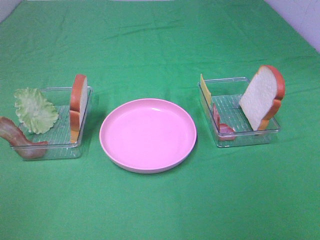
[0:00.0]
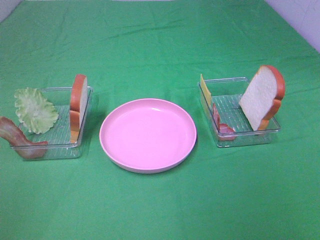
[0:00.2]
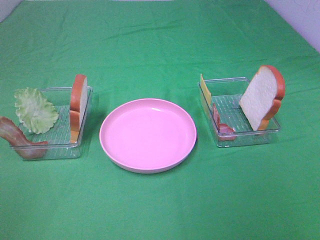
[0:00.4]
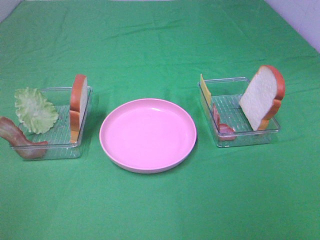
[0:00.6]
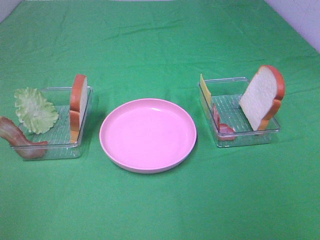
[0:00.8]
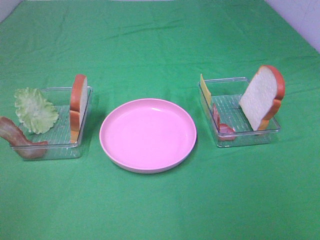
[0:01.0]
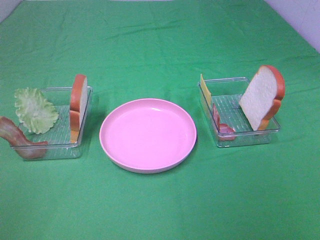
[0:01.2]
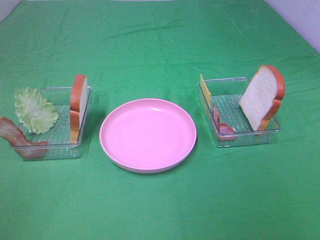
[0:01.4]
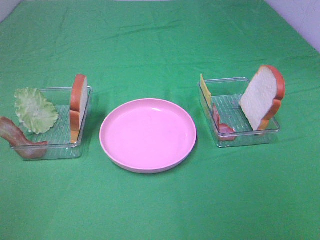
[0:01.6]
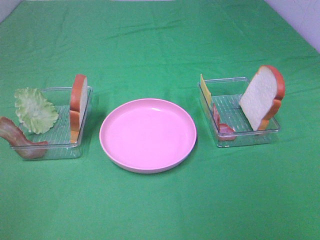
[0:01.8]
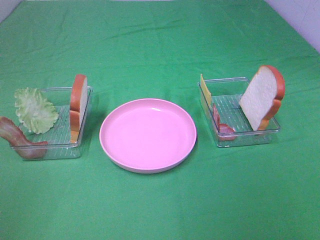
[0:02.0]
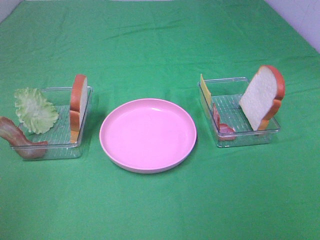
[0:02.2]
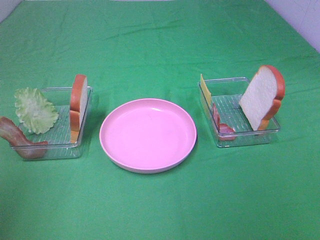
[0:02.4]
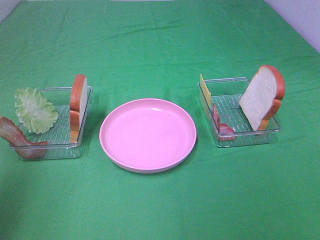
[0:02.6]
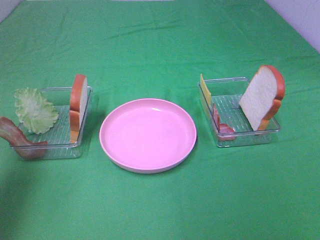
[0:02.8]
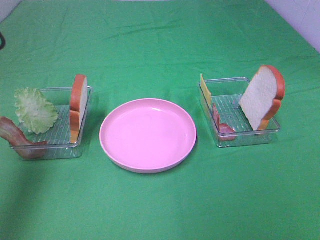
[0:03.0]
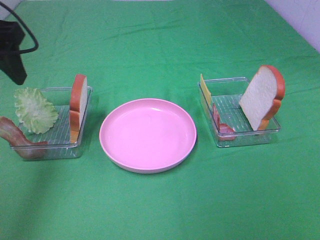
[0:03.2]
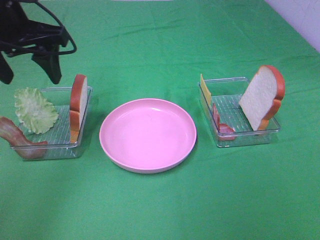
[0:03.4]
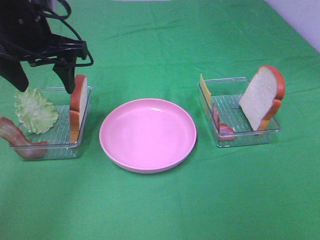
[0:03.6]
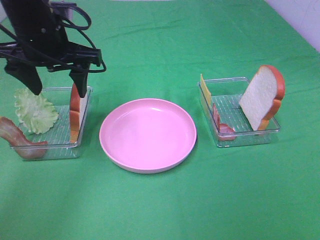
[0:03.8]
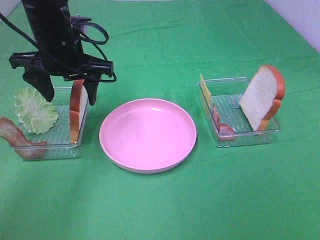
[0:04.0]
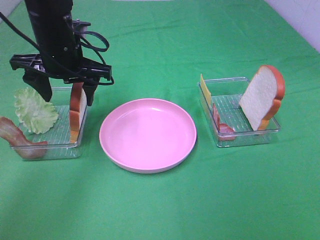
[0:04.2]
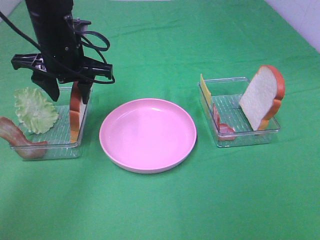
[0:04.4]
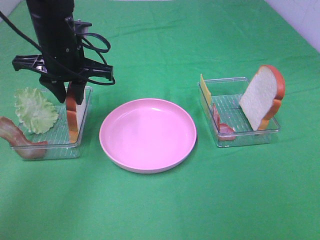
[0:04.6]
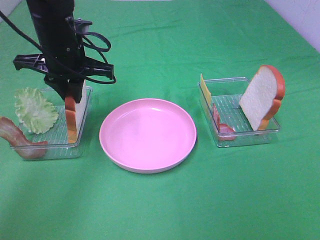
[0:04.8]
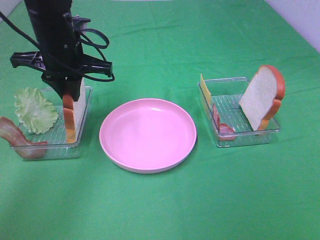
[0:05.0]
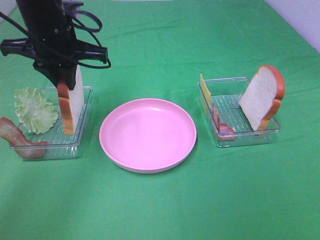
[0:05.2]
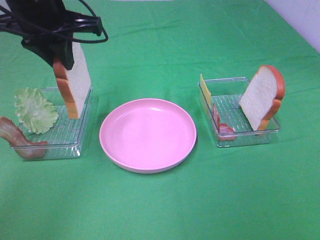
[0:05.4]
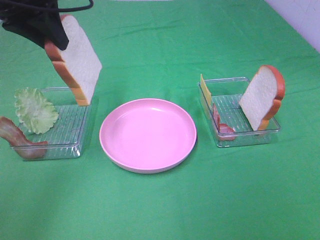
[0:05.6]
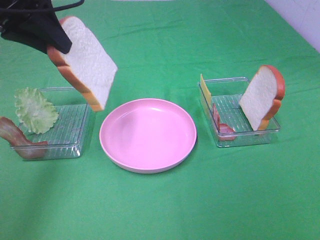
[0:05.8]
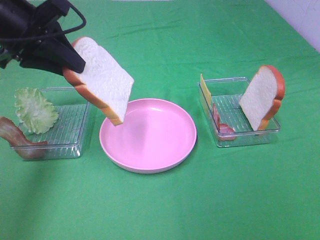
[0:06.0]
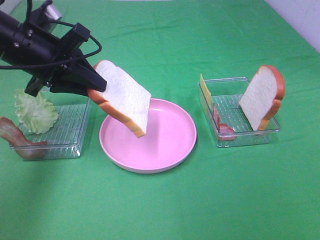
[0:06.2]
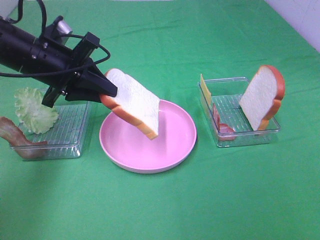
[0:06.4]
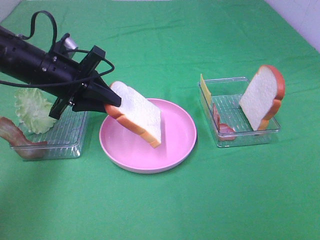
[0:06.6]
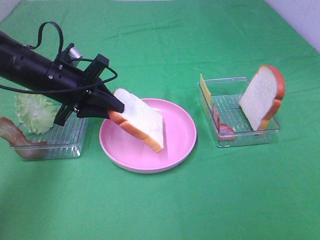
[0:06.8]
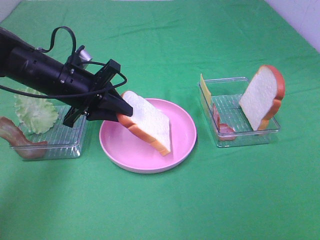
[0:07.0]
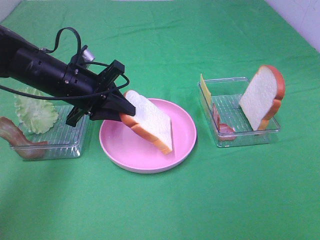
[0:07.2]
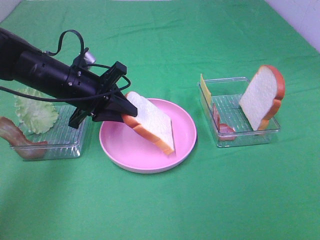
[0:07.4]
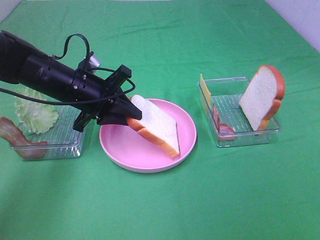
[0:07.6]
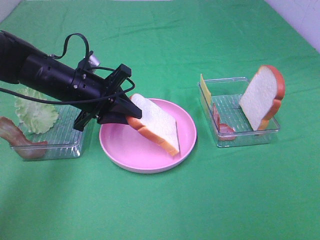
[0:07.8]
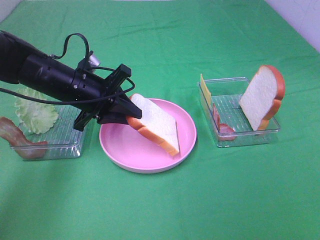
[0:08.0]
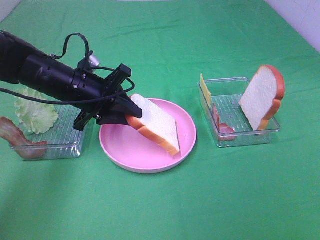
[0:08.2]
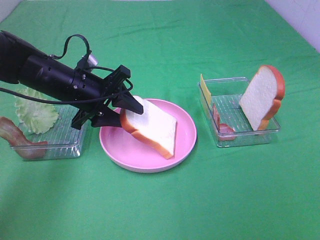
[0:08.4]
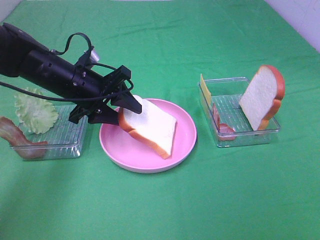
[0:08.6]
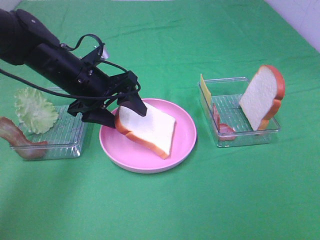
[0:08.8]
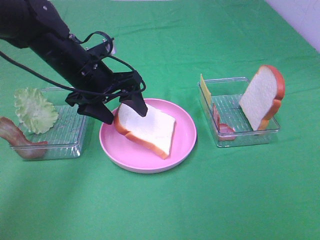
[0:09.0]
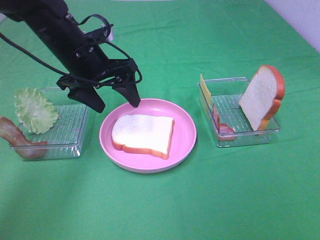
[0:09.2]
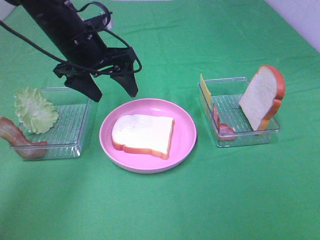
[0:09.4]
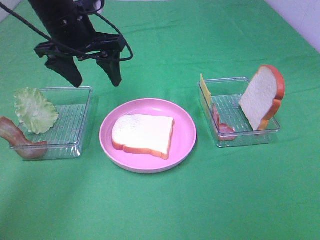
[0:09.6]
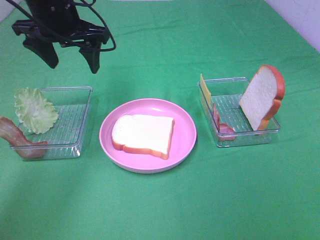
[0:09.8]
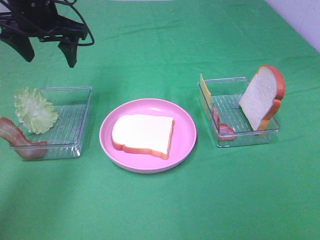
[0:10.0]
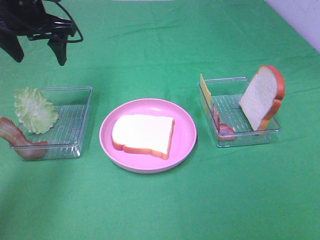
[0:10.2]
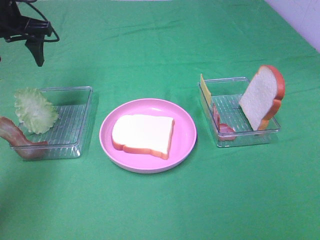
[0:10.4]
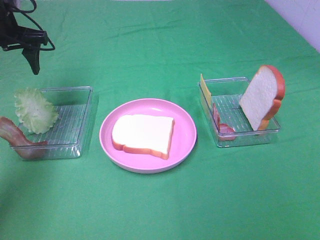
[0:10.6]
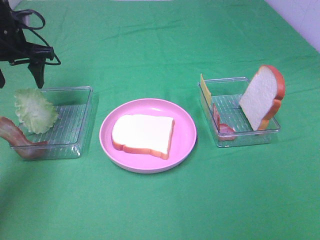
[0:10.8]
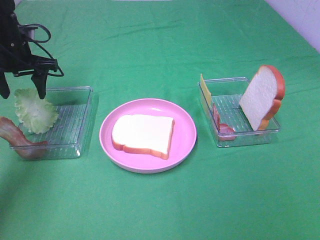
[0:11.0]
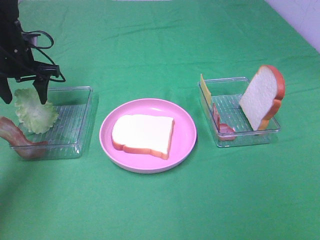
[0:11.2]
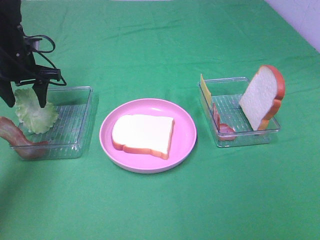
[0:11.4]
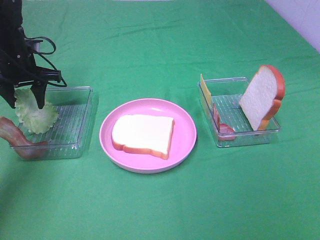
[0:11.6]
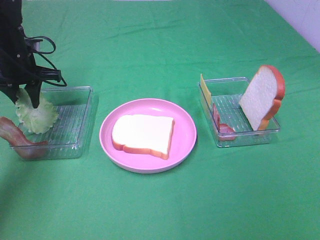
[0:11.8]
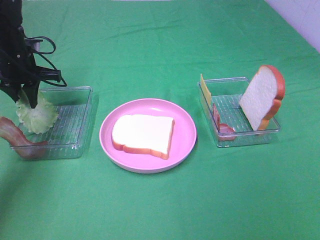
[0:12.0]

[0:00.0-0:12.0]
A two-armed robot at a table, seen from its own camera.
Task of the whole recording: Make sandwiches.
Step, 0.0 to 4.8 s: Left hand:grab the bread slice.
Step, 5.0 to 9.4 s: Left hand:place the bread slice on the plate.
0.0 to 1.6 s: The two grippers keep their place.
1.6 to 3.0 s: The left gripper travels forward by about 25 cm.
3.0 to 4.4 s: The left gripper heads to the right, forward and downward, covering approximately 20 cm.
4.4 to 6.0 s: The left gripper travels upward, backward and to the left by approximately 10 cm, and closes its fingers.
6.0 to 7.6 s: The left gripper moves downward and to the right, about 15 cm.
7.6 to 9.0 s: The left gripper opens its fingers.
9.0 to 10.4 s: The left gripper is displaced to the left, upward and forward by about 15 cm.
10.4 to 12.0 s: The left gripper travels downward by approximately 10 cm, and closes its fingers.

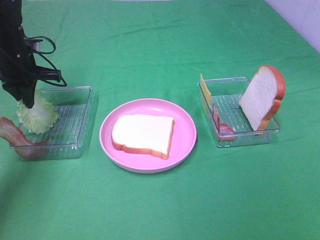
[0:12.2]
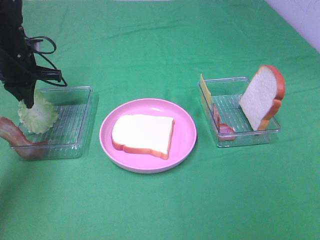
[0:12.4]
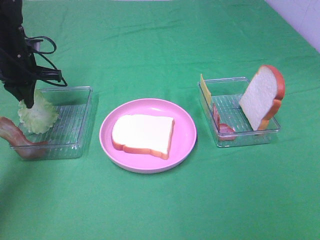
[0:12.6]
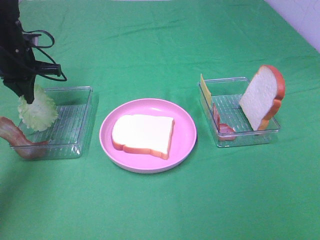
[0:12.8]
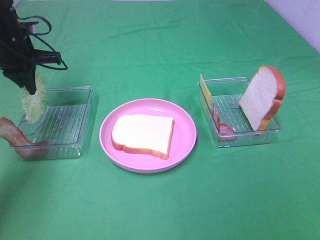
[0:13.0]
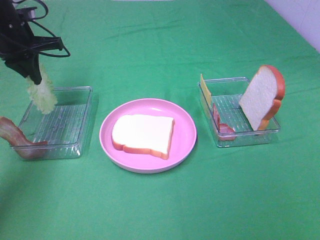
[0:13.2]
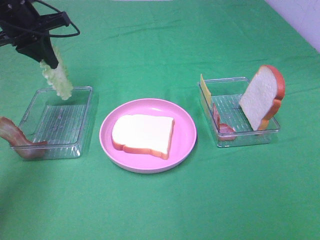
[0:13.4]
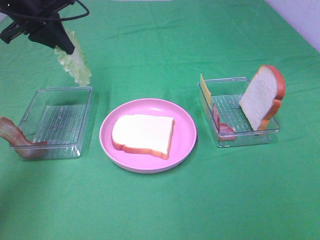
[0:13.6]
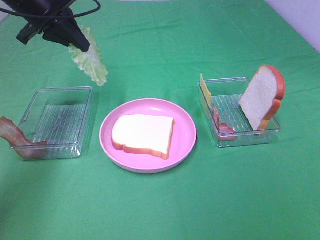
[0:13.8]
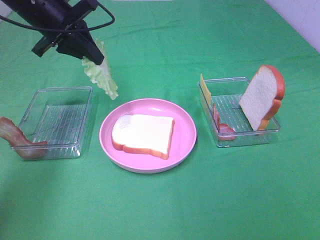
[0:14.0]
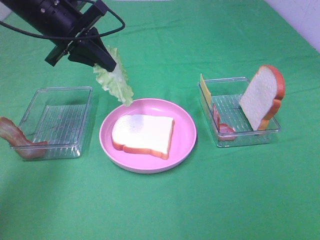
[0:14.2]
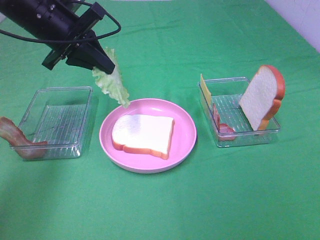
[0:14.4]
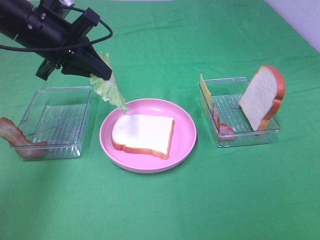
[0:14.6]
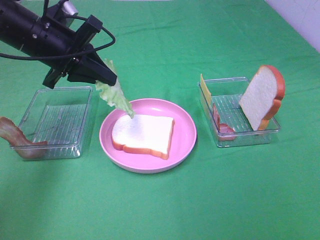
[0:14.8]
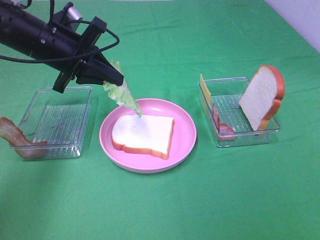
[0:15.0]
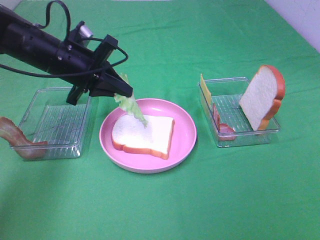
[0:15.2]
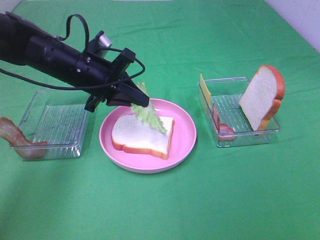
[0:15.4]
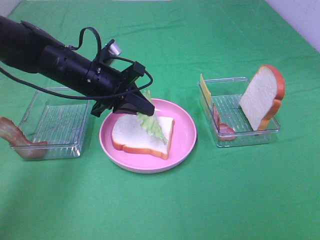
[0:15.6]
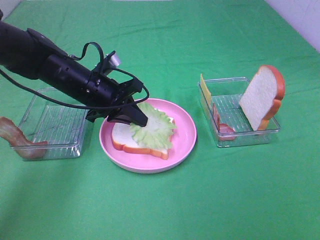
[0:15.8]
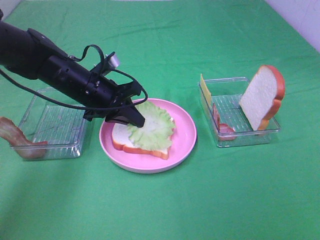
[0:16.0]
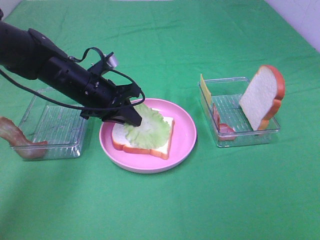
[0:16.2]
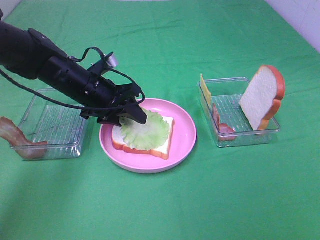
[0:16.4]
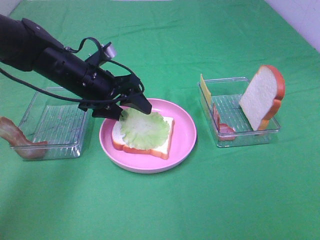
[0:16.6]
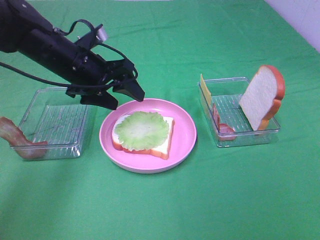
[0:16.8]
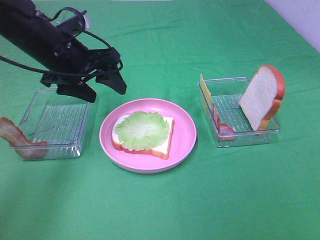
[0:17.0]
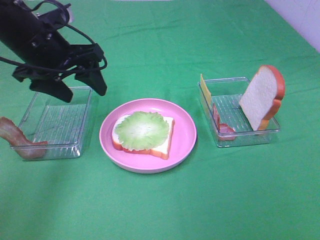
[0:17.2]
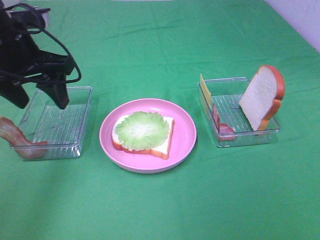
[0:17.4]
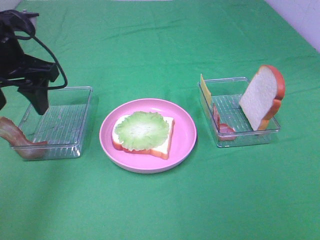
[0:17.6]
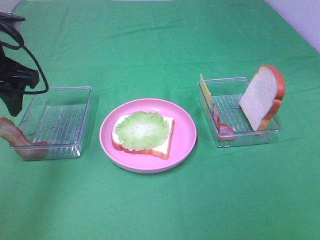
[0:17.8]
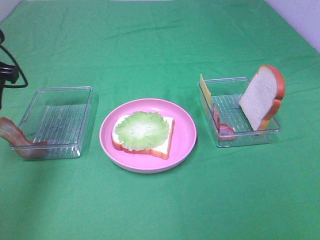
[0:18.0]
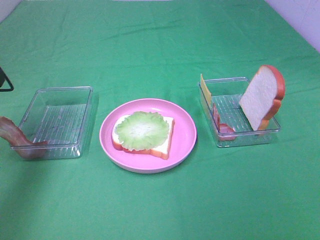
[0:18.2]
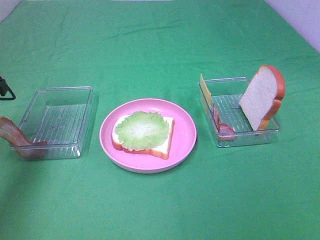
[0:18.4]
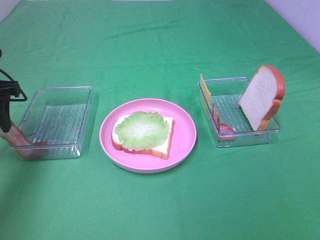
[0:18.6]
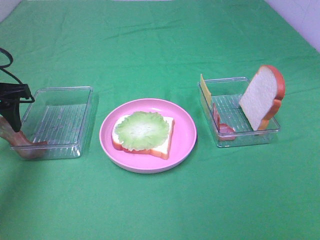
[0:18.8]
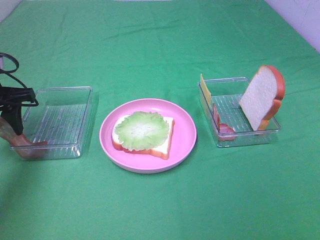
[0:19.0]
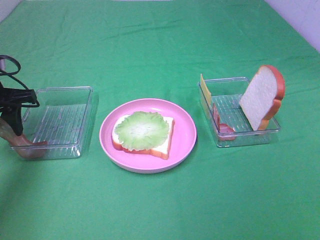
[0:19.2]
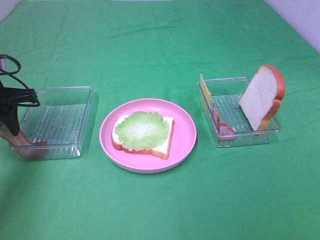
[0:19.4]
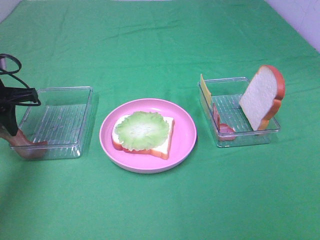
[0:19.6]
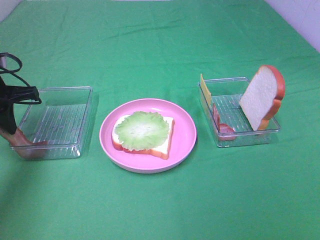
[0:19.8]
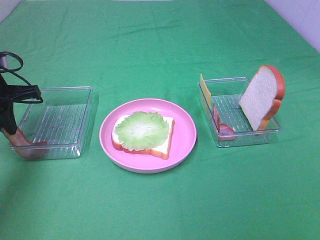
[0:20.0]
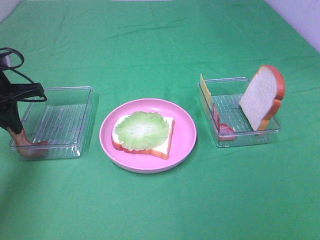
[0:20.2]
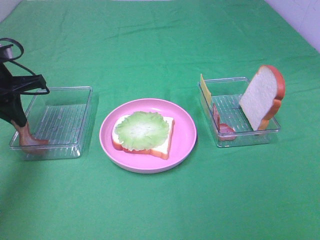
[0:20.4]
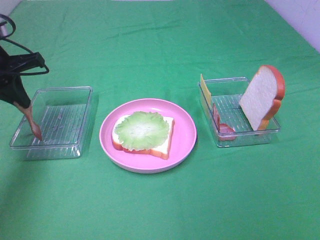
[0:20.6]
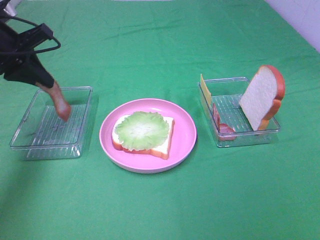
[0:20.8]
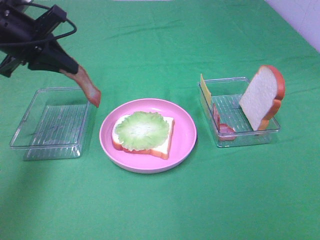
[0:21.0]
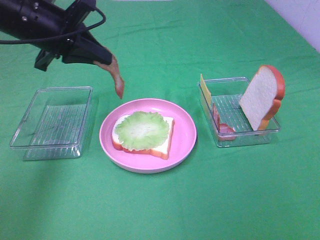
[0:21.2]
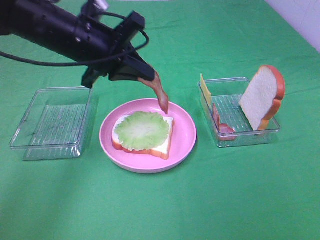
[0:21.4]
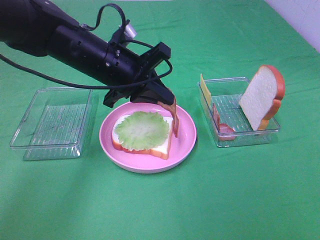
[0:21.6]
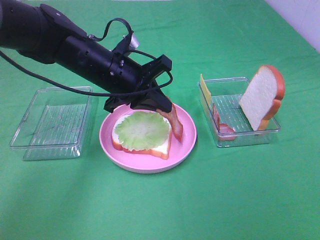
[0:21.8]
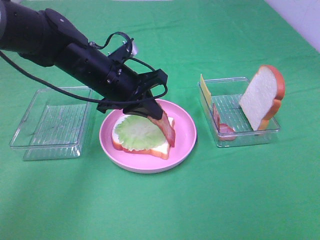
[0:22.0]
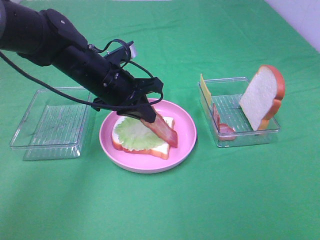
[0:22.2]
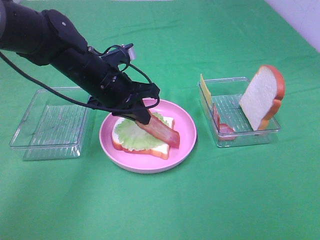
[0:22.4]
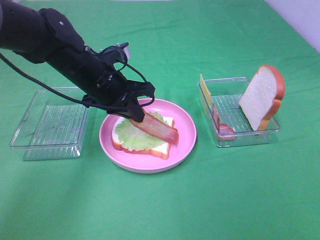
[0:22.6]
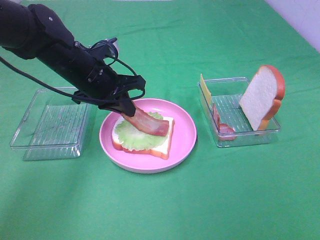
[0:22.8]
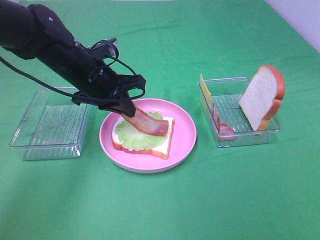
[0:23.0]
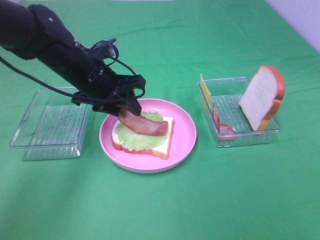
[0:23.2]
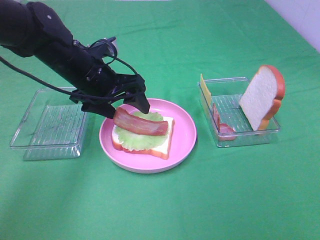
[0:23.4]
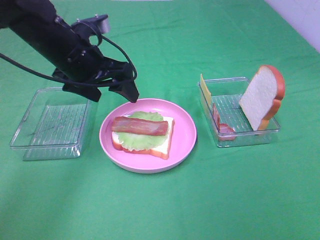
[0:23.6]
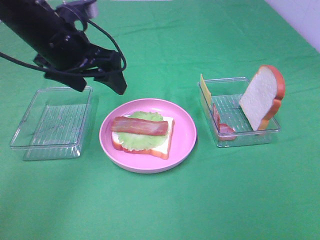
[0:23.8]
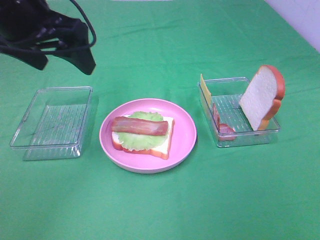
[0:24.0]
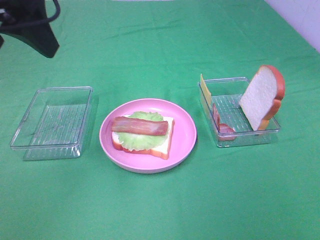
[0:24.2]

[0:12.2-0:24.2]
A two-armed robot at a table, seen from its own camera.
Task of the whole recording: Make sandwiches.
Step, 12.6 to 17.0 s: Left hand:place the lettuce slice on the bread slice.
Step, 17.2 to 20.2 s: Left hand:grab the bacon.
Step, 20.4 to 23.6 s: Left hand:place bacon on lettuce slice.
12.2 to 13.8 s: The left gripper shifts approximately 15 cm upward and to the right.
13.8 to 15.2 s: The left gripper goes some 10 cm downward, to the right and backward.
15.2 to 16.6 s: The left gripper opens.
16.6 to 18.2 s: The left gripper is displaced to the left and upward by approximately 20 cm.
18.2 to 19.8 s: The left gripper travels downward by approximately 5 cm, and closes up.
19.8 to 21.2 s: The left gripper heads to the right and upward, covering some 15 cm.
21.2 to 22.6 s: The left gripper shifts about 10 cm downward and to the right.
22.6 to 24.2 s: The left gripper travels upward, backward and to the left by approximately 25 cm, and opens its fingers.
